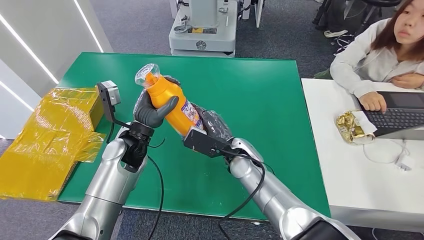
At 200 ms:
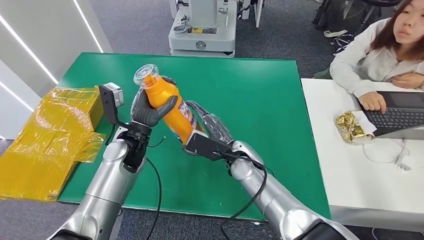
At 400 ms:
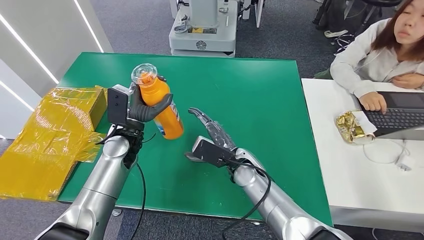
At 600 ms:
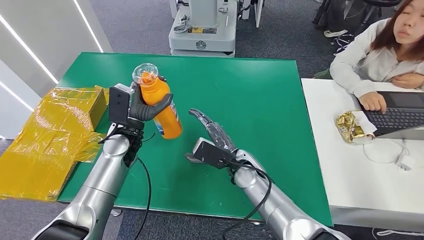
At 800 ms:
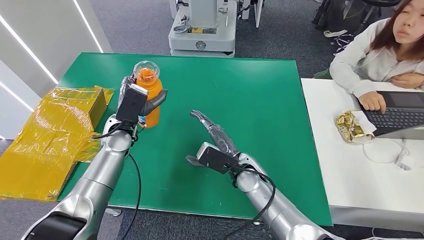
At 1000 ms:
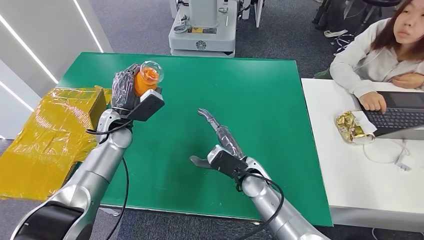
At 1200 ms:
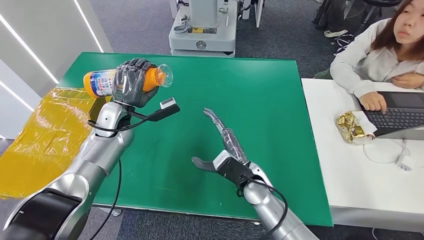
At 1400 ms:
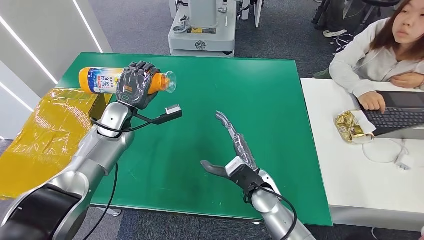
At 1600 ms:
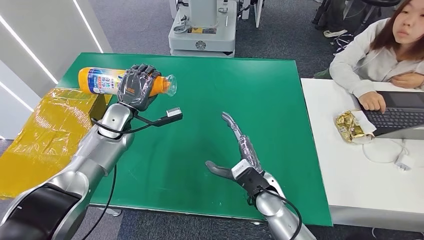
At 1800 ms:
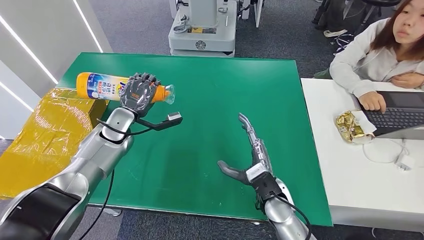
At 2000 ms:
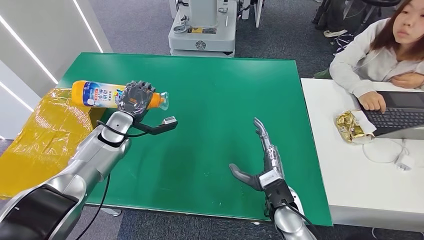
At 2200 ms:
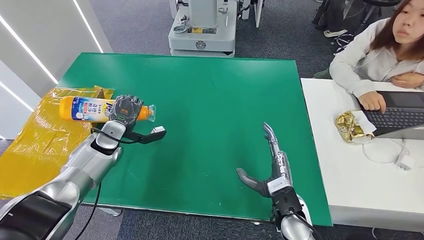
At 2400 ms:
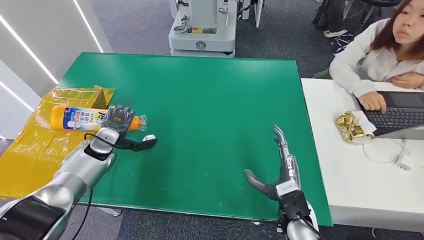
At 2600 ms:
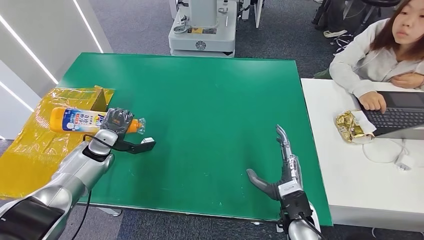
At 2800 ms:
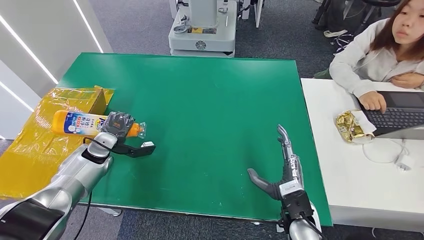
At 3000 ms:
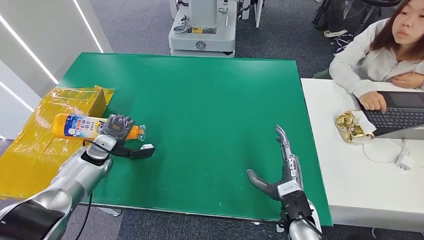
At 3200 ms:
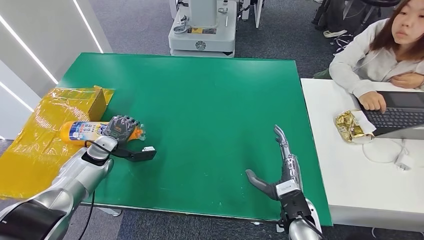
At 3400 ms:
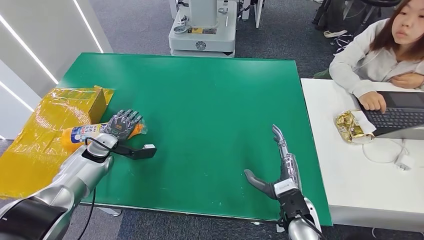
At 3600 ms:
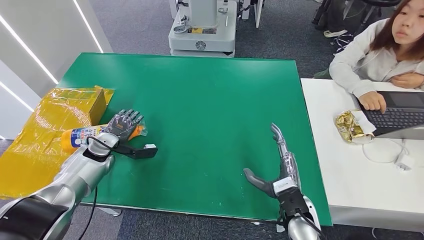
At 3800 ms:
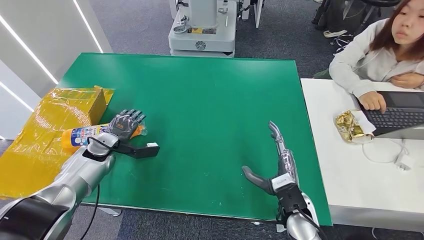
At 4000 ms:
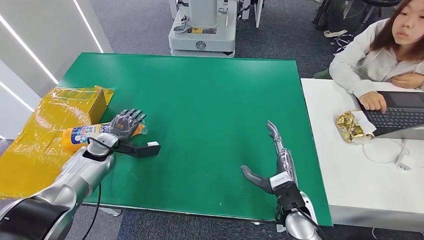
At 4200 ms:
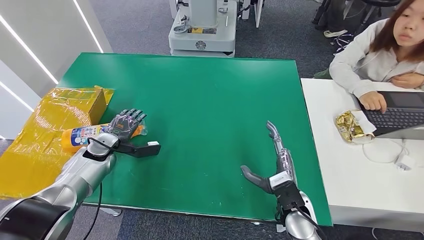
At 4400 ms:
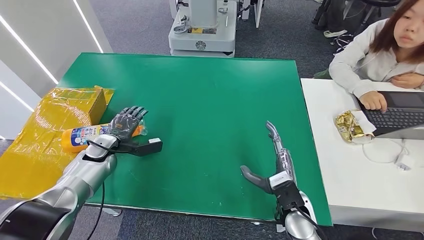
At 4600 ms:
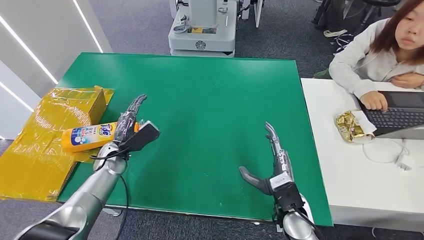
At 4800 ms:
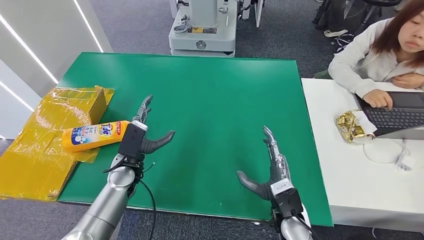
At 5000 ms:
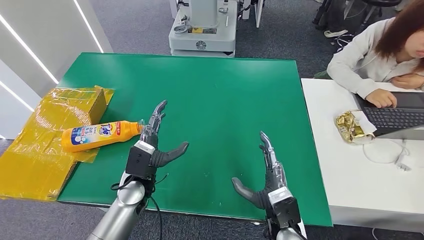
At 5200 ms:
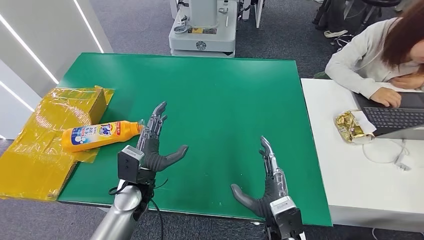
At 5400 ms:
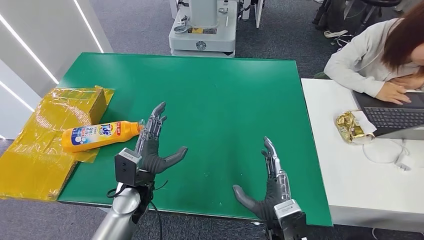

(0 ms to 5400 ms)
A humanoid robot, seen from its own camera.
Step, 0 ms - 5400 ms: Turn the bottle to the front side.
1400 ms - 2800 ms: The left hand travels downward and to the left by roughly 15 cm, while the right hand moves to the right and backward, approximately 10 cm.
2800 ms - 4000 ms: The hands stay close to where they were, moving slightly.
4000 ms - 5400 ms: The left hand is displaced to the right and backward by some 20 cm. The right hand is displaced backward by some 5 cm.
